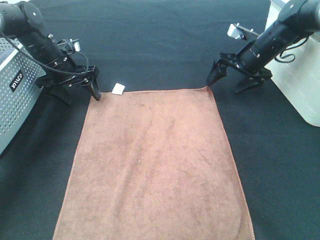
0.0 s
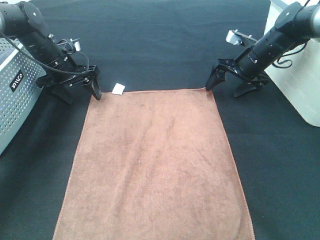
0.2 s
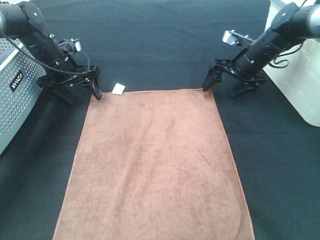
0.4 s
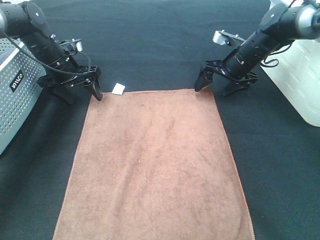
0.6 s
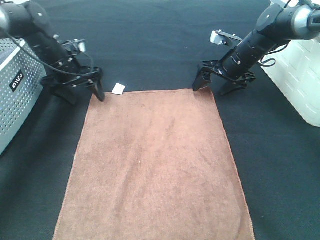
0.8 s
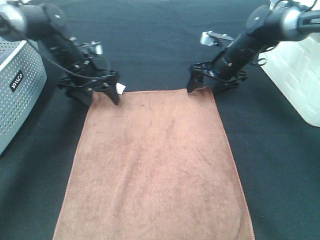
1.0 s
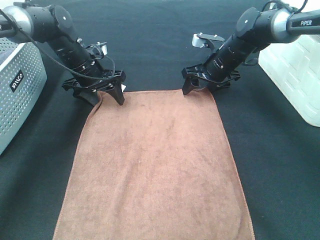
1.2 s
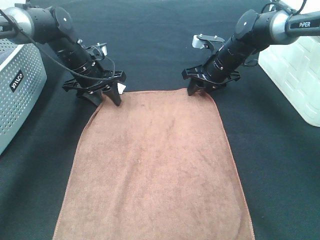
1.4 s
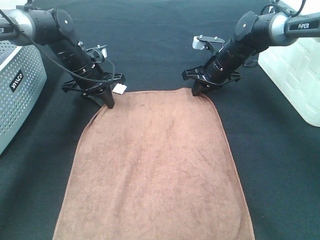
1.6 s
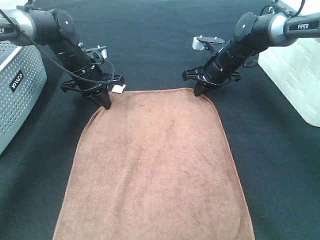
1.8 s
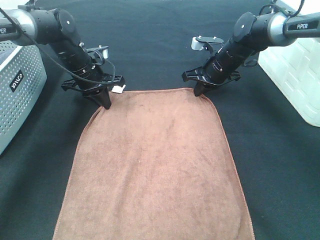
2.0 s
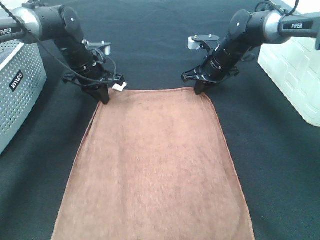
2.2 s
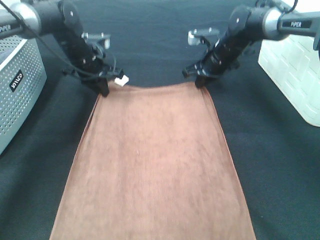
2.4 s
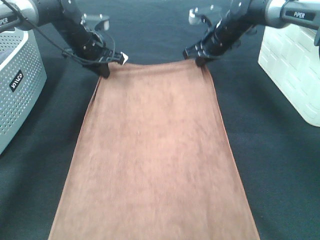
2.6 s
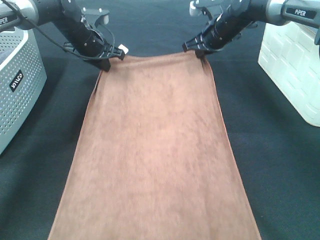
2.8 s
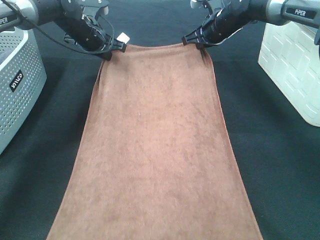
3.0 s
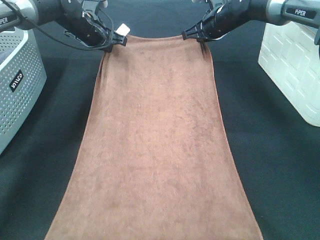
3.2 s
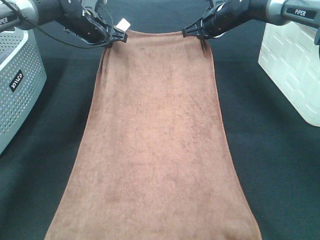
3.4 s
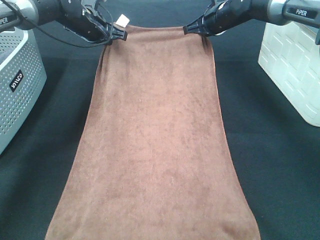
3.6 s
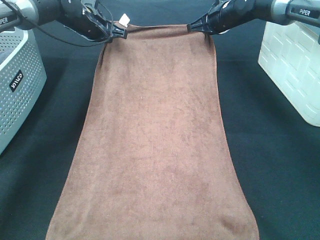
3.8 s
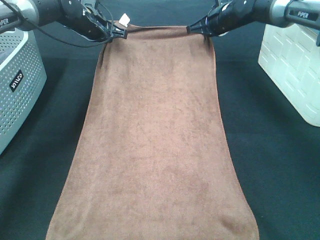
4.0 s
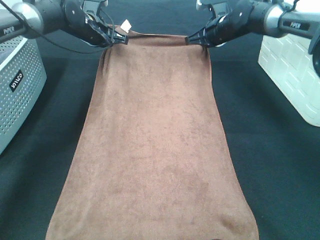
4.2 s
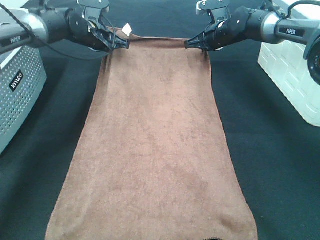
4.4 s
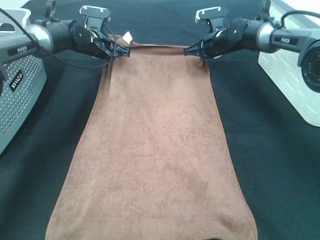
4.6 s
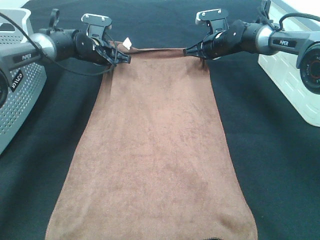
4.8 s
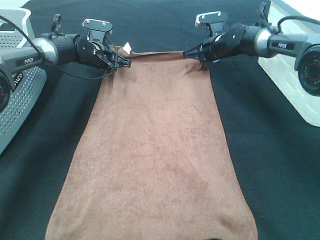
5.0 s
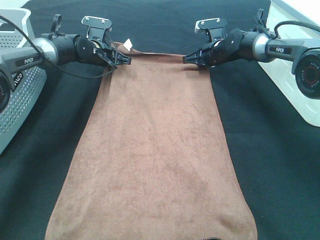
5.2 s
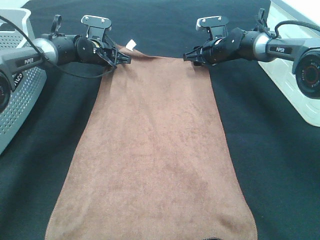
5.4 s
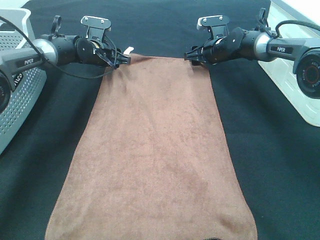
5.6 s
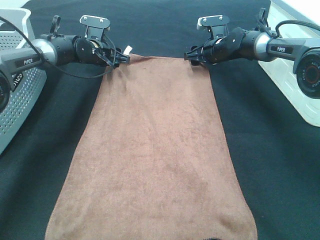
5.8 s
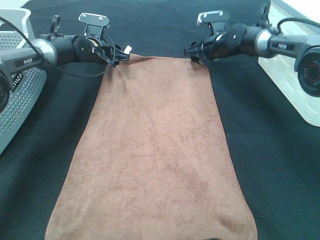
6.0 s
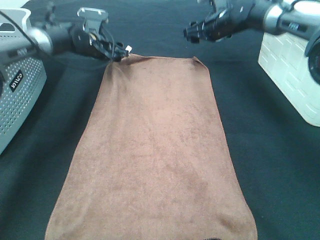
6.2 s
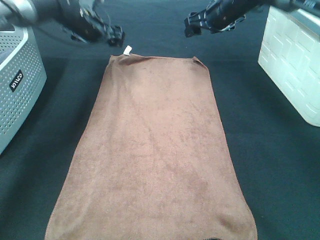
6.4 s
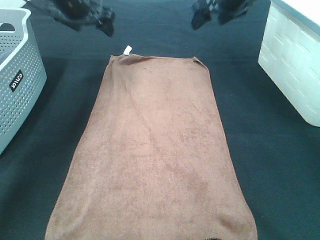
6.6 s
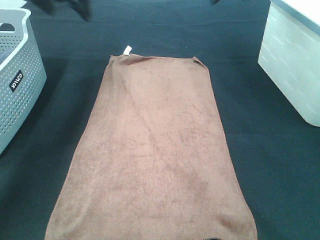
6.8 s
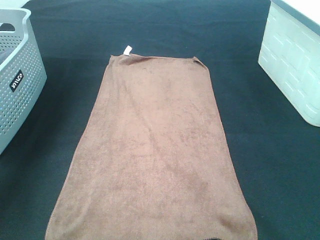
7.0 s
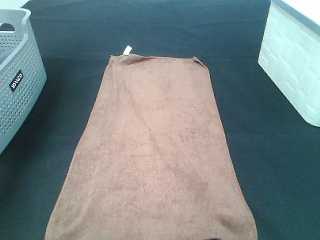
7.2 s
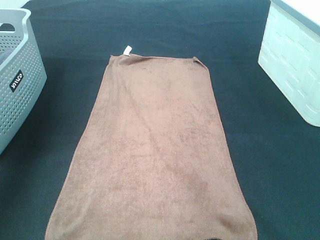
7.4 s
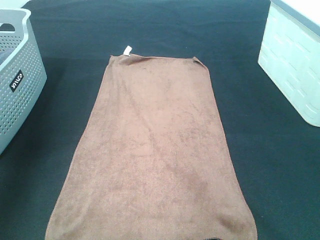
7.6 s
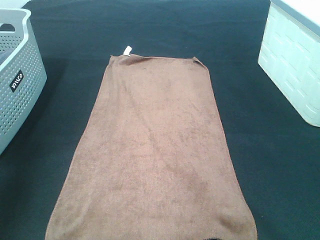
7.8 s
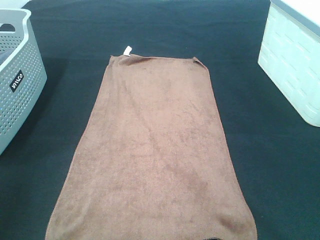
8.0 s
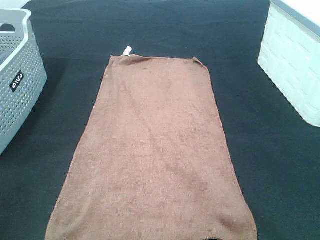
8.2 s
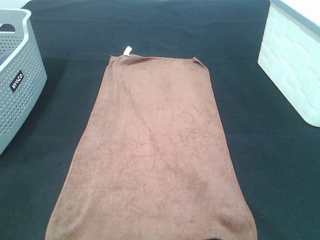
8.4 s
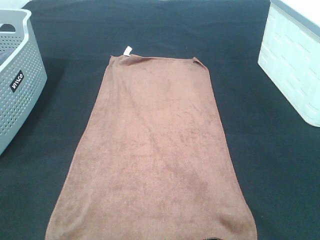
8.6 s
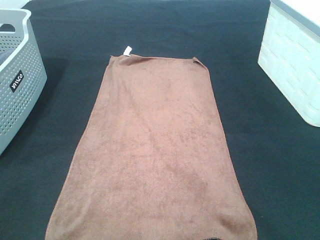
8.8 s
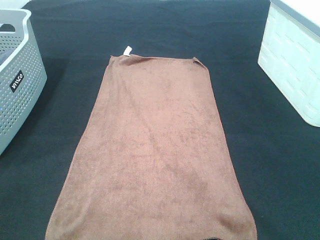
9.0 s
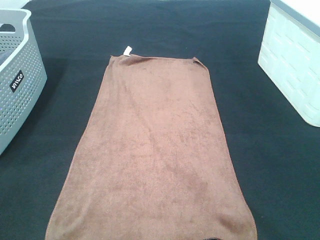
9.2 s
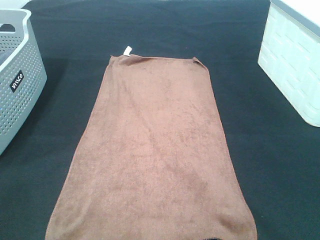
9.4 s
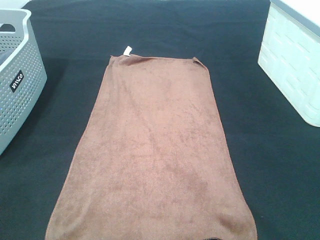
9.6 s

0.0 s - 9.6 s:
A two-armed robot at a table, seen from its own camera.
Task of the whole recording: Remove the towel and place it.
0.0 s - 1.6 s: The left gripper travels to the right by some 5 cm, and closes up. Meanwhile the right gripper heads to the left, covering approximately 10 cm, and closes.
1.6 s - 3.2 s: The grippers both shift upward and forward by about 10 cm.
3.2 s - 4.8 s: Both grippers move downward, roughly 5 cm.
4.8 s - 6.4 s: Both grippers travel together upward, some 10 cm. The left gripper opens its fingers. The right gripper opens its fingers.
6.4 s - 8.0 s: The right gripper is displaced backward by some 50 cm. The left gripper shifts approximately 50 cm backward and upward.

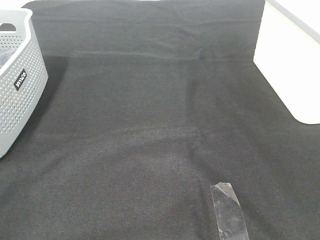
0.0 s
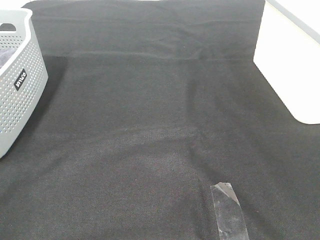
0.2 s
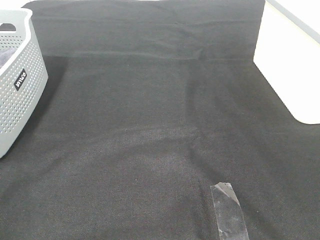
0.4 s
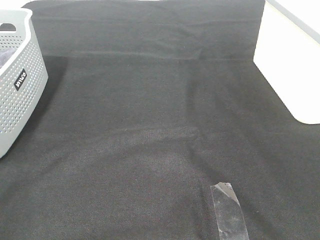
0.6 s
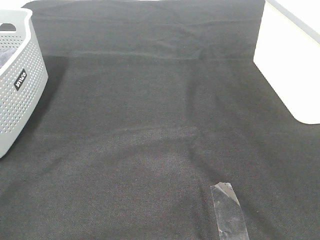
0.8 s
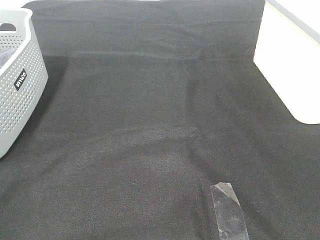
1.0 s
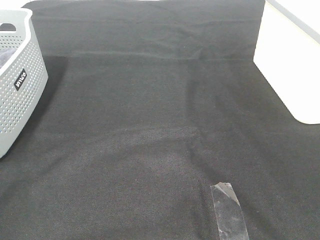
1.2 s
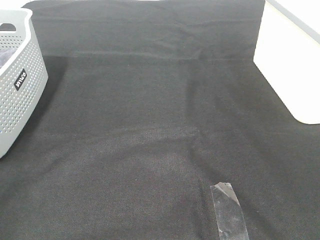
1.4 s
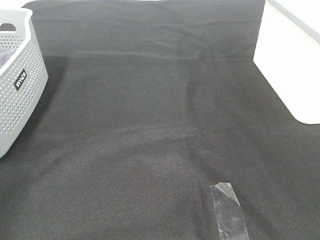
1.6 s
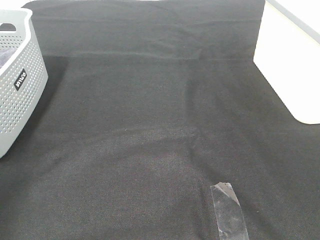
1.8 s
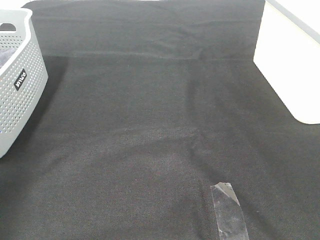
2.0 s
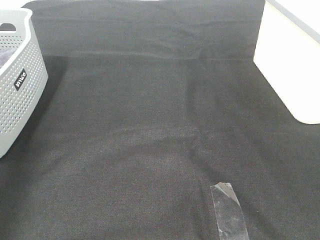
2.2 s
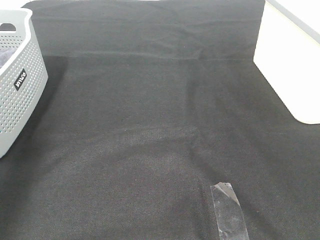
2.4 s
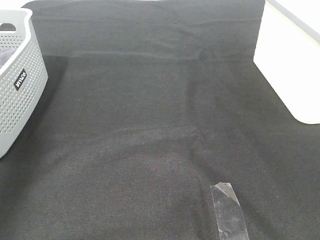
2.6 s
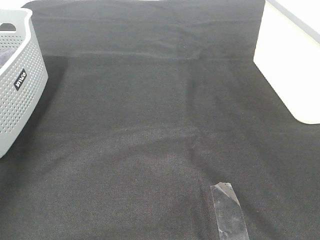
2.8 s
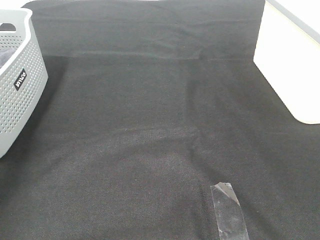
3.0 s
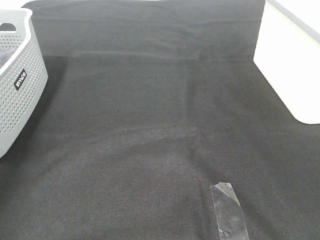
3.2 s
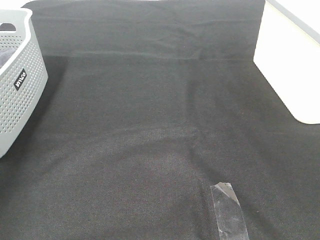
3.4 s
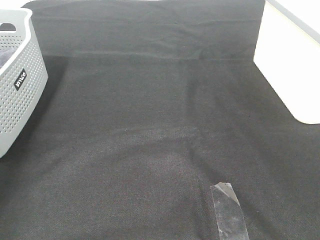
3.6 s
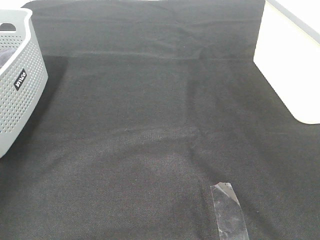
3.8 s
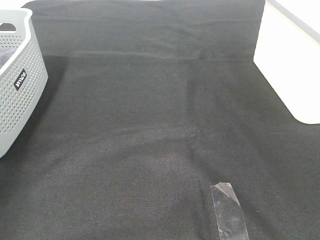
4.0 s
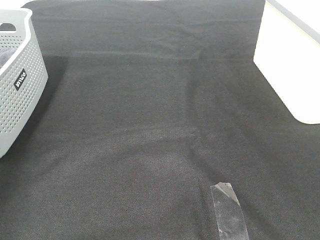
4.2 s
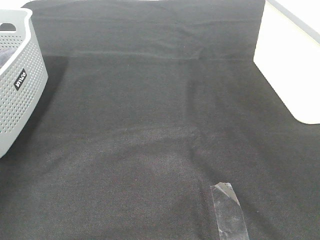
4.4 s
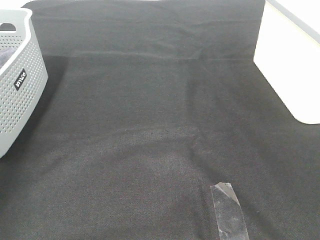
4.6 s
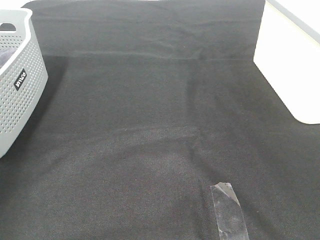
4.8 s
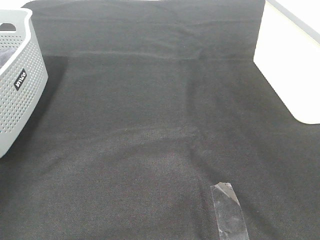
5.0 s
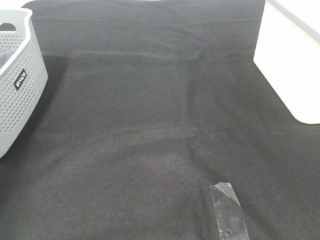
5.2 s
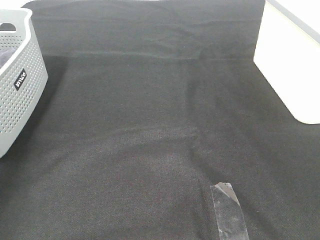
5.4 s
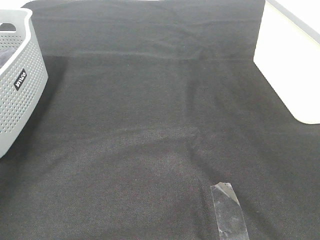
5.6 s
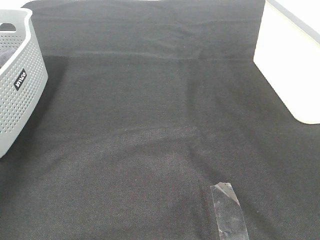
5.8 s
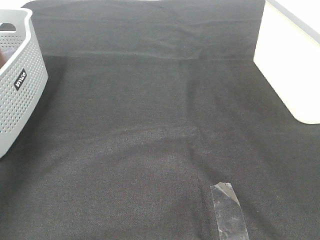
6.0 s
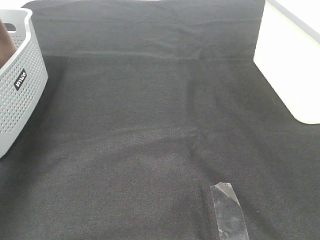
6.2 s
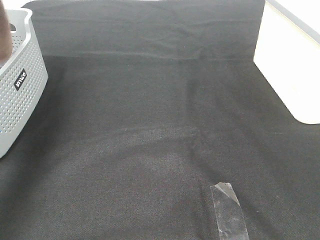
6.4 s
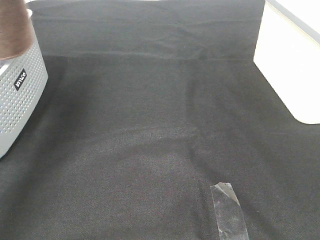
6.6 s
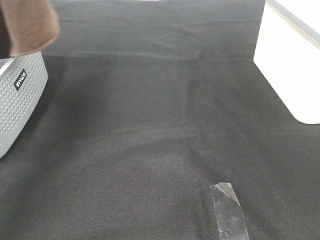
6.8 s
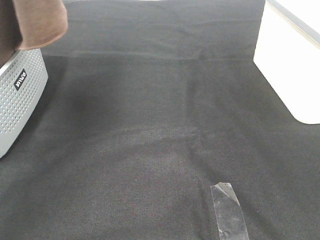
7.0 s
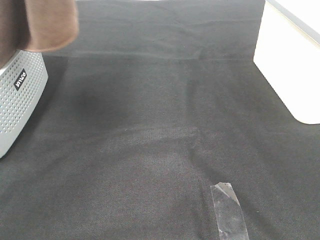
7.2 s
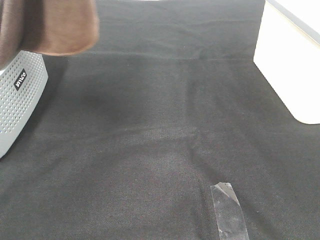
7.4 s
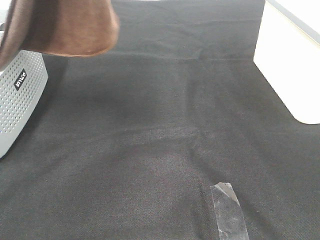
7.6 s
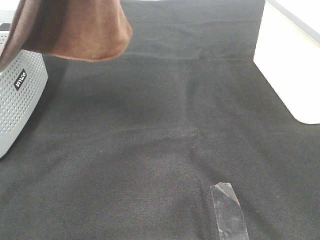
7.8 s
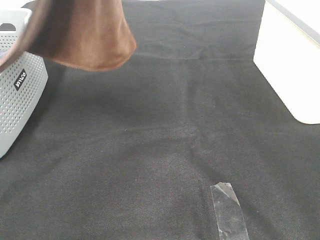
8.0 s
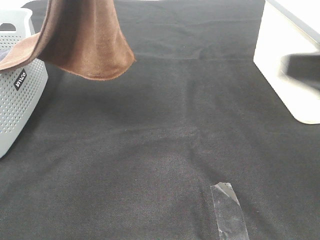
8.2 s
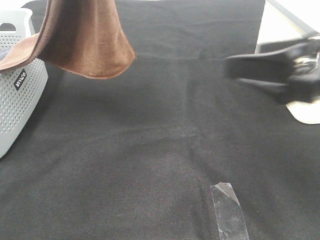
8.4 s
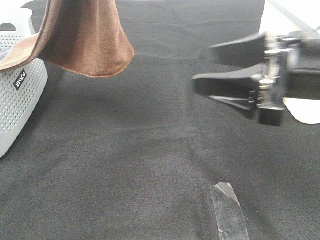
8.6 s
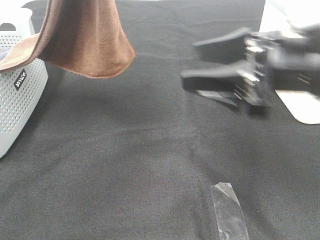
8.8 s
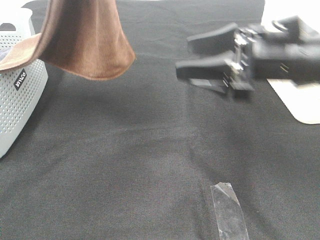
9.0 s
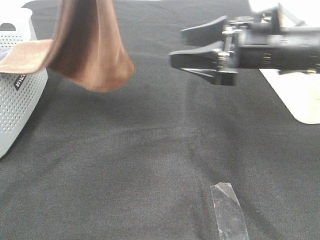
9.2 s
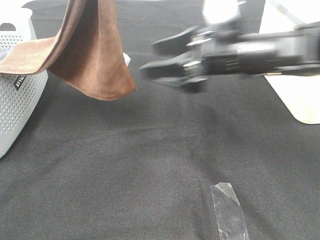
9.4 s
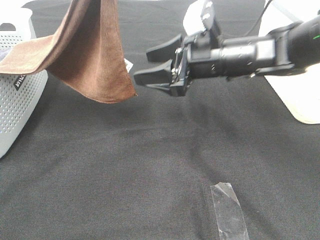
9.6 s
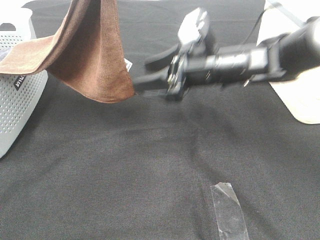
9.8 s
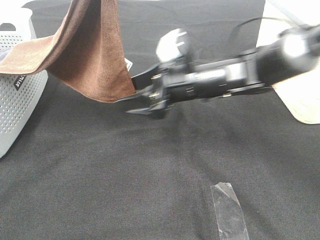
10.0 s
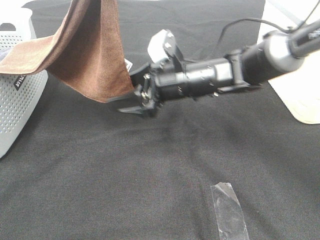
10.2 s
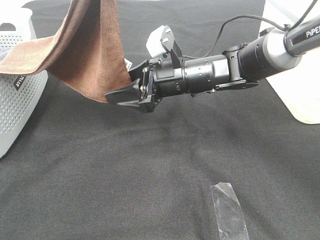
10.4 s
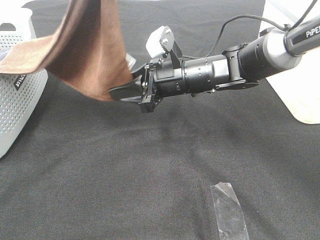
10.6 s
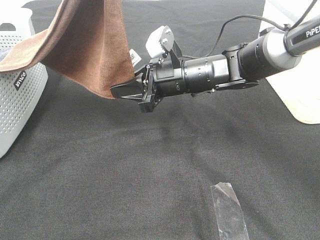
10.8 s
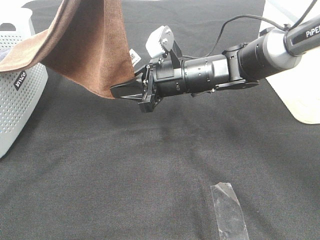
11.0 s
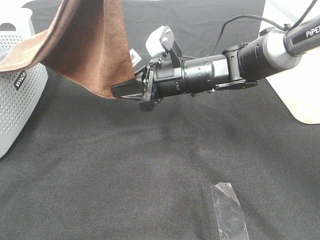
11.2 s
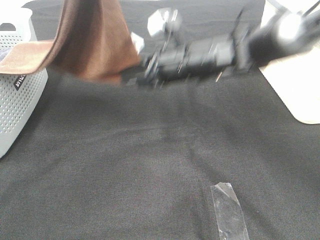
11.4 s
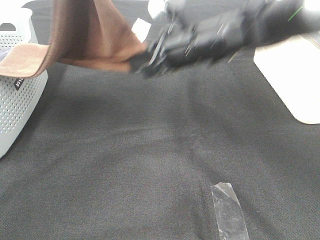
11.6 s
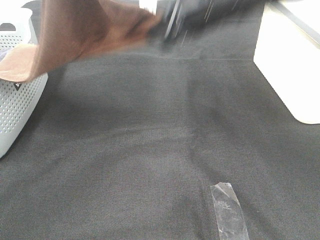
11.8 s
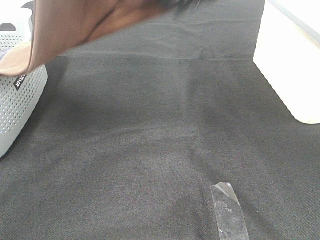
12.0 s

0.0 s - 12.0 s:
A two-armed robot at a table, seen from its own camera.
Task of the whole recording: Remove the towel and place it.
Step, 8.2 s - 10.8 s: Right hand: grab a corner of the brown towel and straighten it.
6.0 s - 7.6 s: The left gripper heads to the right and upward, covering roughly 20 cm.
7.6 s - 9.0 s: The right gripper moves forward, roughly 30 cm.
9.0 s - 10.4 s: The right gripper is displaced to the left, downward and forward by some 15 cm.
10.4 s - 12.0 s: The left gripper heads to the left and upward, covering approximately 10 cm; the right gripper travels upward by roughly 20 cm, and closes its fingers.

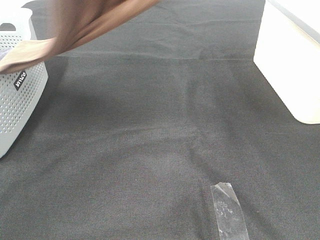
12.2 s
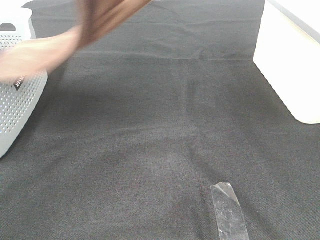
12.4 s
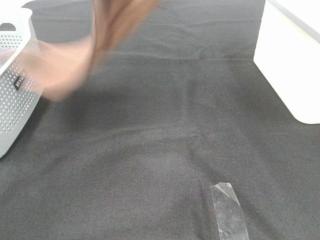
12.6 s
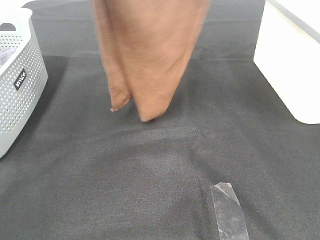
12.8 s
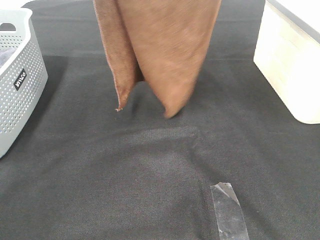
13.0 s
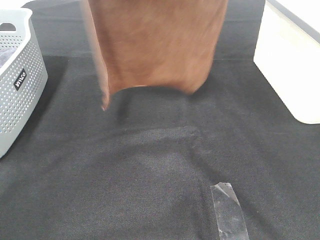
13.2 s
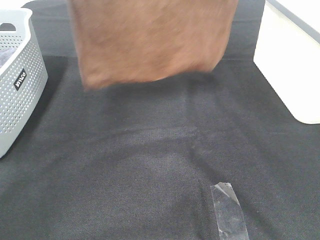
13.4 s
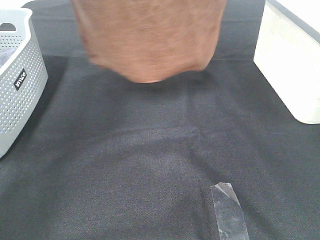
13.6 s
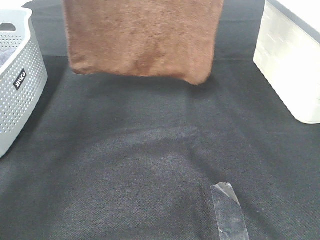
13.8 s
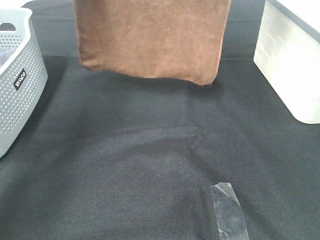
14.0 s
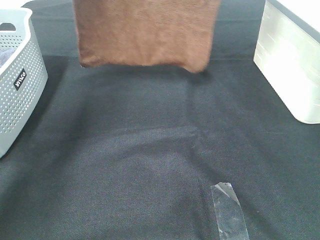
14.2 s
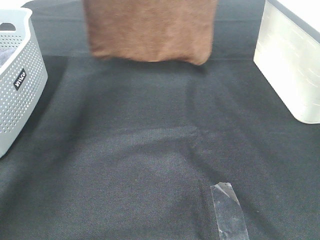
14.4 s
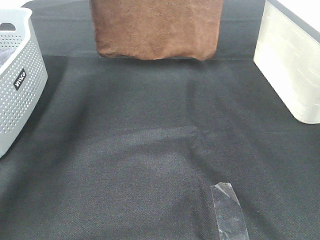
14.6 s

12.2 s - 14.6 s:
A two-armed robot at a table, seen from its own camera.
Task of the whole recording: Remove the towel and place it.
12.2 s - 13.4 s: The left gripper ends up roughly 5 cm from where it was. The right gripper shifts some 15 cm upward.
13.4 s - 14.6 s: Both grippers move forward and downward, roughly 15 cm.
